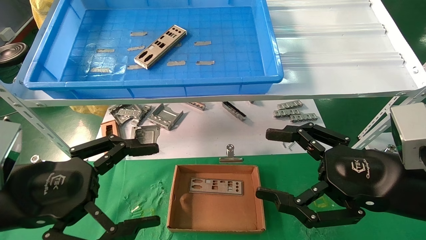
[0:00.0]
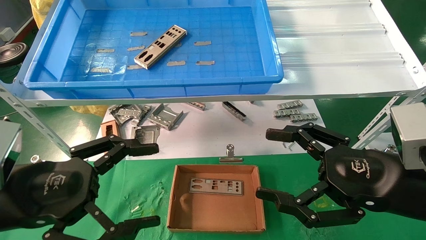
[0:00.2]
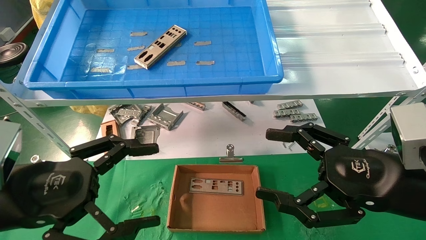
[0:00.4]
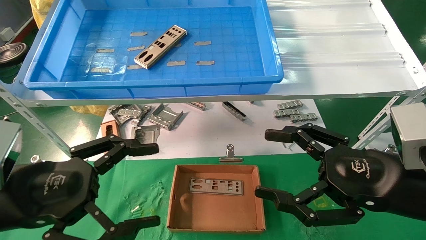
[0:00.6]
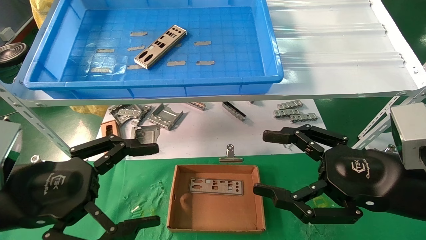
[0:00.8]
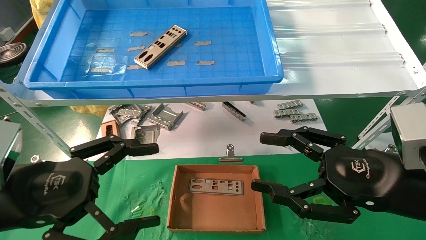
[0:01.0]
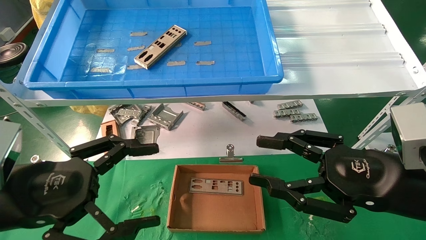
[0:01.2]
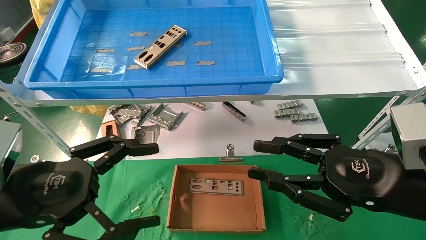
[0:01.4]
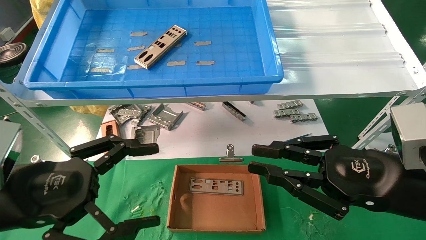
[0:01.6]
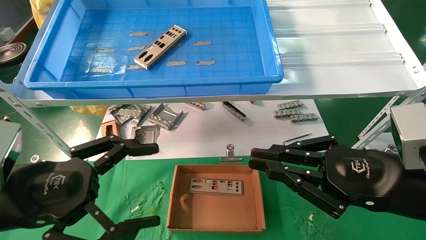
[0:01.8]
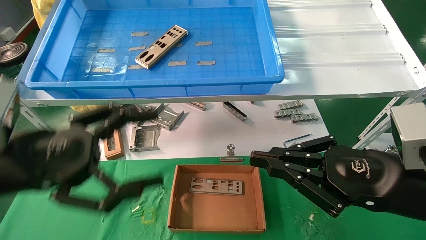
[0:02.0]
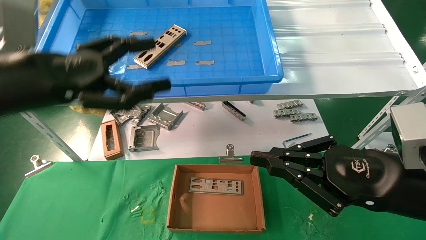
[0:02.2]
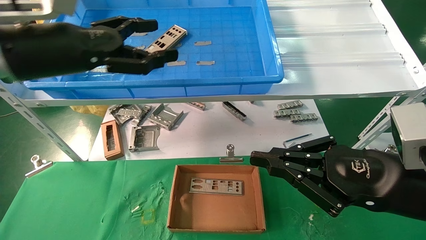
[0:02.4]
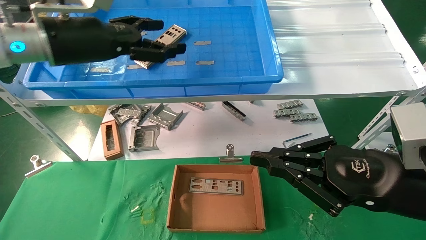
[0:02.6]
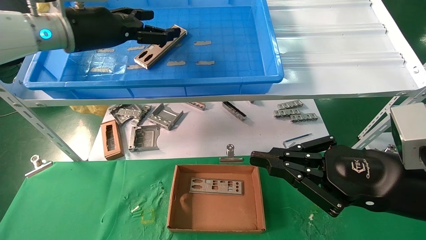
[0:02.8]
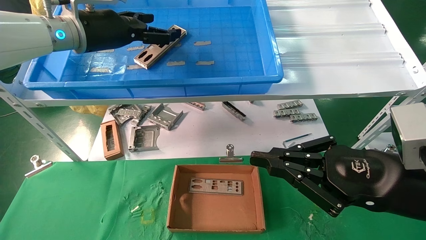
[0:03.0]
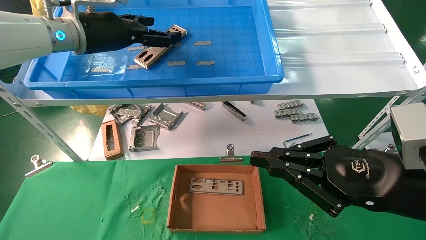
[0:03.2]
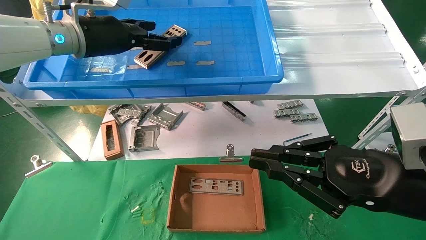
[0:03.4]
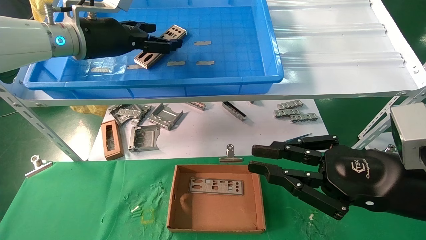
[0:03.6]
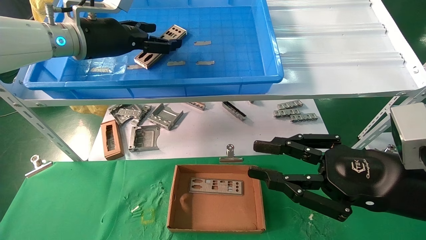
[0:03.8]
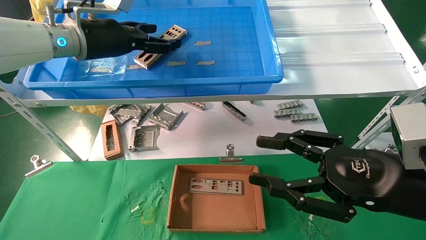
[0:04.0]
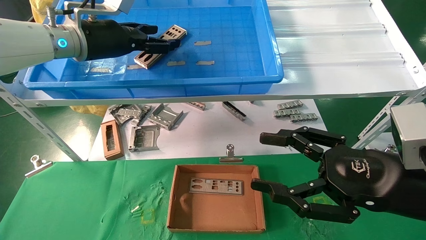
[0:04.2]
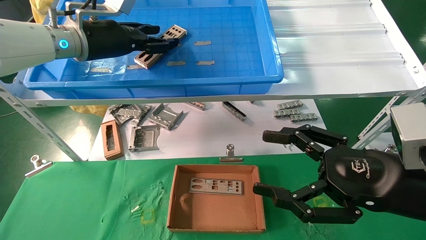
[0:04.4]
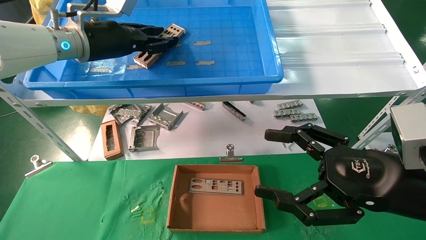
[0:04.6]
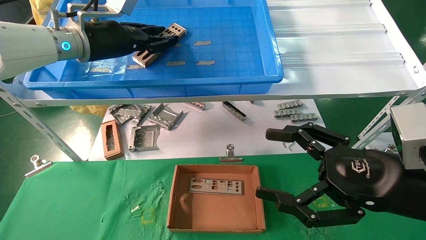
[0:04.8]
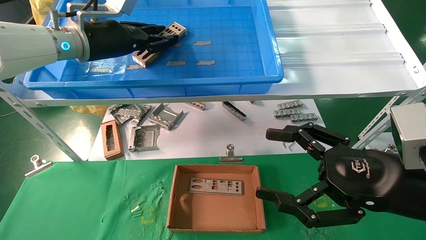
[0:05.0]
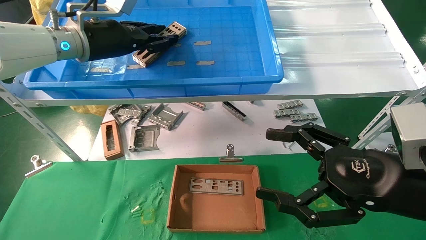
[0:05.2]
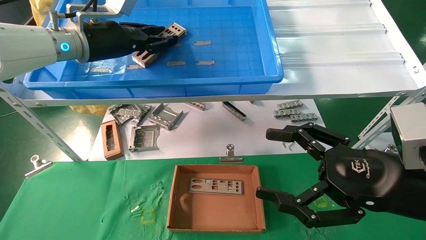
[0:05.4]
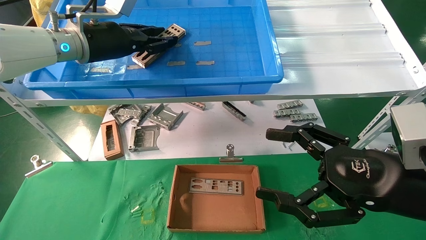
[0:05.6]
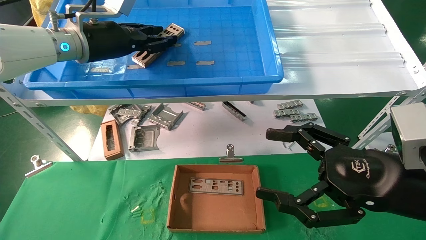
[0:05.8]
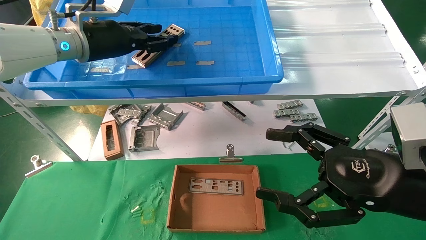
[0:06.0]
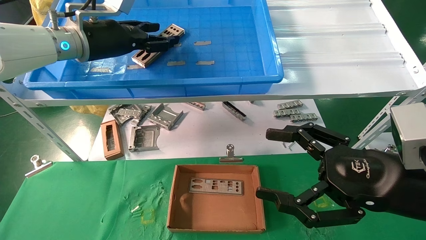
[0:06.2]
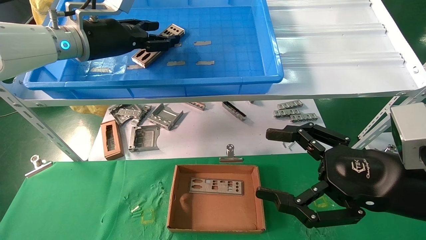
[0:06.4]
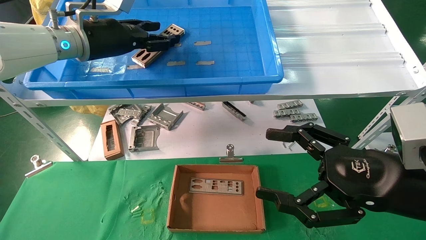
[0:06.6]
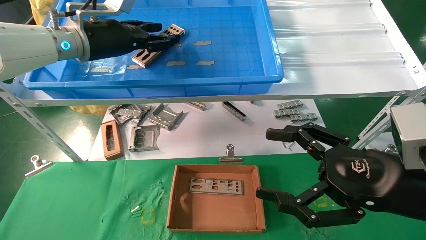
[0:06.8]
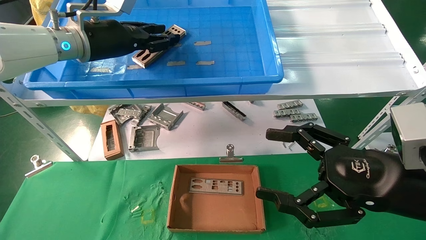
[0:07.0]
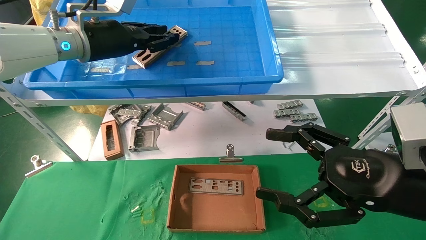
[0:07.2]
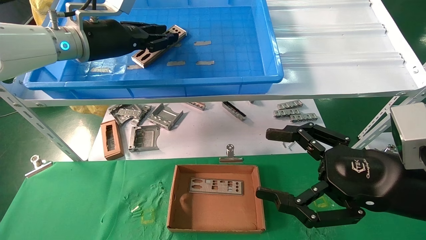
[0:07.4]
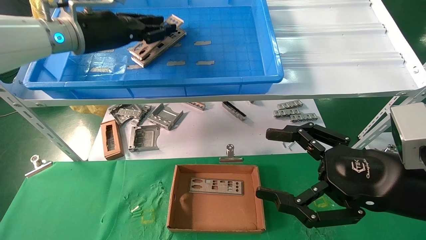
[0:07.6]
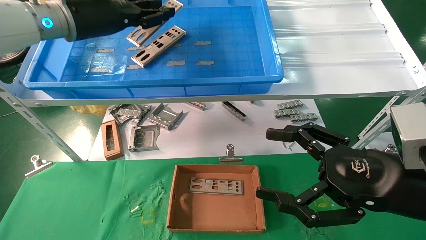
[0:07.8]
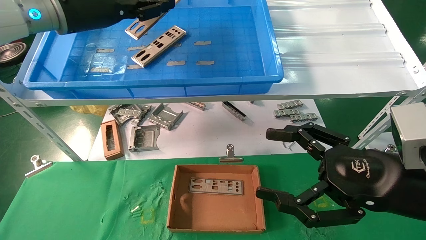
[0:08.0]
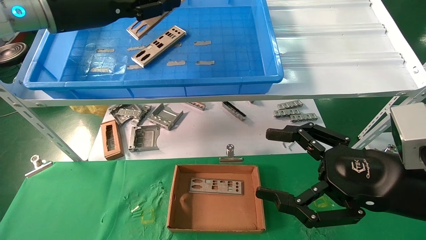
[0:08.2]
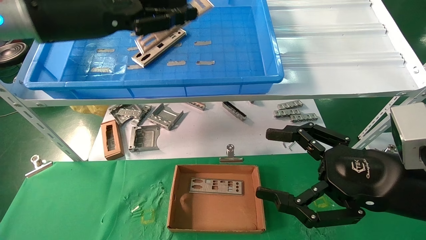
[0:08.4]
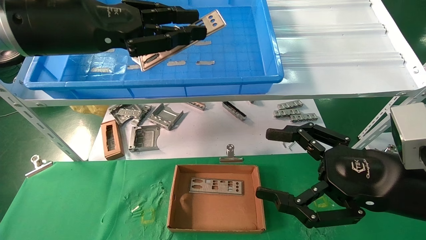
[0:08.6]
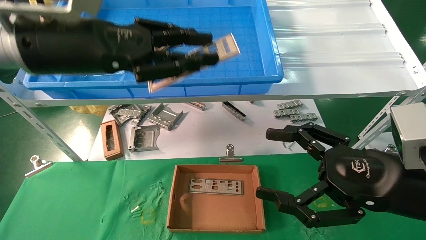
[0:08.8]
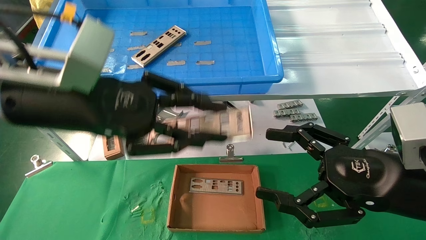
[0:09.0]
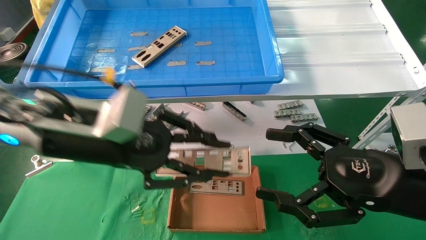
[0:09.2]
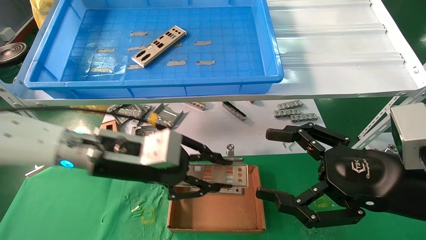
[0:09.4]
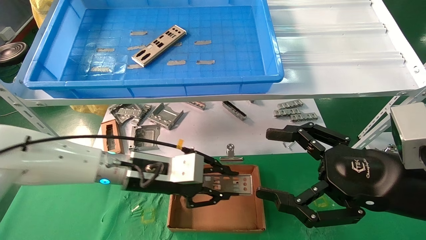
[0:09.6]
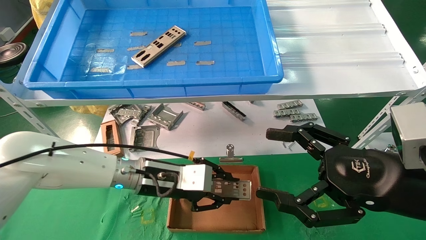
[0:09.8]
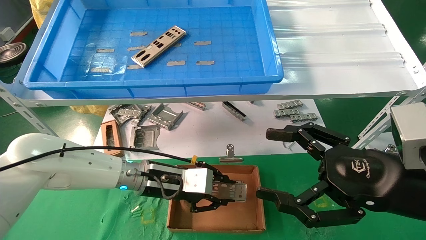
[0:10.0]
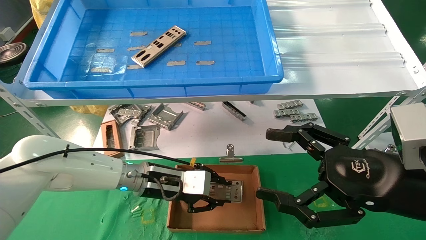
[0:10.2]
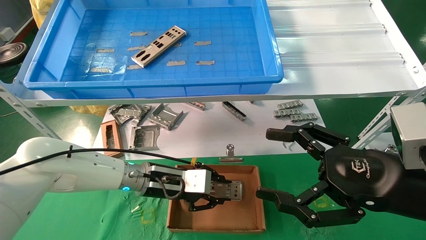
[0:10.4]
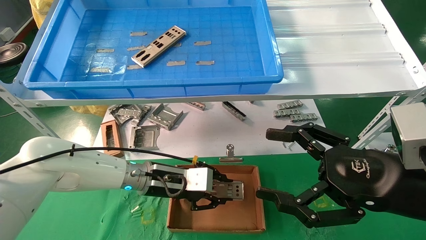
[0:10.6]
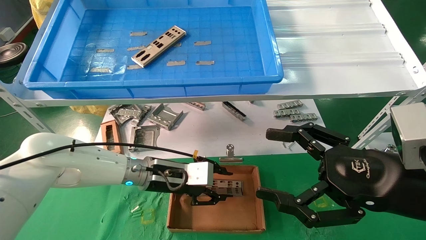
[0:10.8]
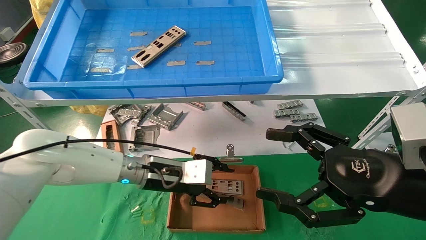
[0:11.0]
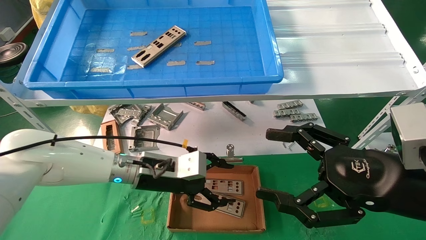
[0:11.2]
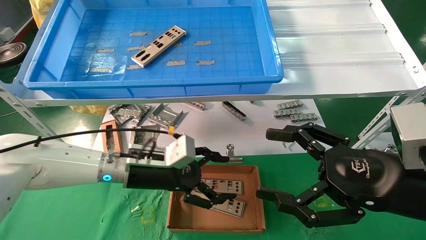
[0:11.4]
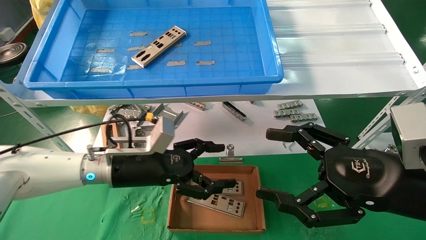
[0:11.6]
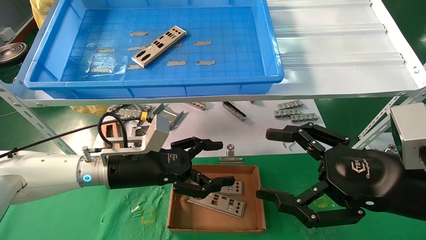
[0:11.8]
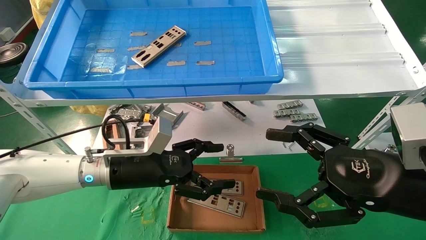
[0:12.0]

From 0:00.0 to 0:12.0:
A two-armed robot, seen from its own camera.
Task of the whole recording: pick up the parts on the tray and put them in the cardboard box.
Step, from 0:02.4 to 0:07.2: Pick up the IO bracket from the container box.
Step, from 0:07.4 to 0:10.8: Place the IO bracket into the ingredient slot.
From 0:00.0 to 0:01.6: The right gripper closes.
From 0:01.6 to 0:03.0: The left gripper moves forward and upward, roughly 30 cm.
From 0:03.0 to 0:04.4: The right gripper opens up; the left gripper closes.
From 0:04.4 to 0:06.0: The left gripper closes up.
From 0:06.0 to 0:07.6: The grippers stay close to where they were, moving slightly.
From 0:07.6 to 0:09.0: The left gripper moves backward and downward, about 15 cm.
From 0:09.0 to 0:10.4: The left gripper travels downward and forward by roughly 25 cm.
From 0:10.4 to 0:12.0: The left gripper shifts by some 10 cm, and opens up.

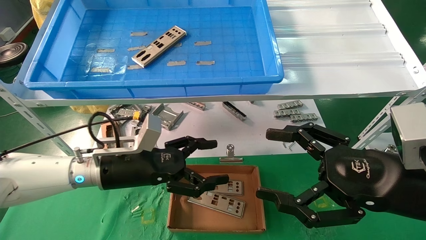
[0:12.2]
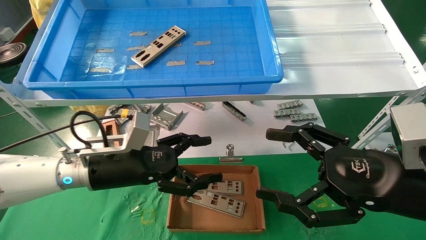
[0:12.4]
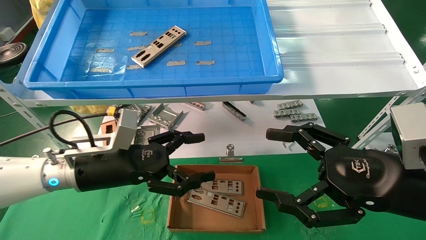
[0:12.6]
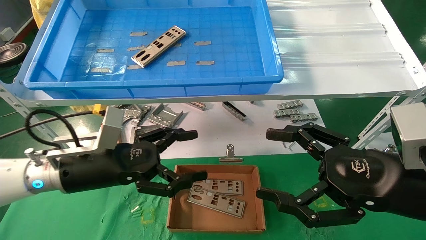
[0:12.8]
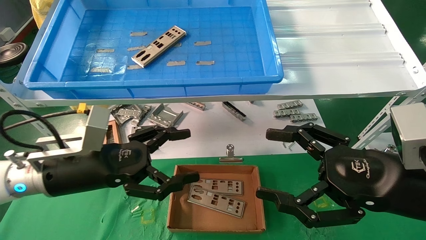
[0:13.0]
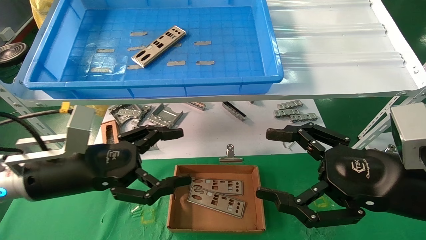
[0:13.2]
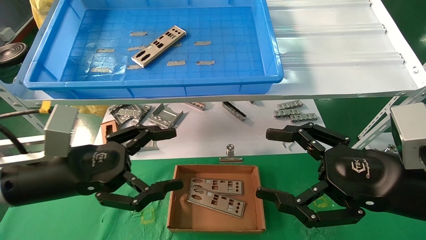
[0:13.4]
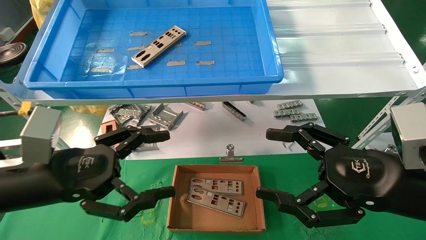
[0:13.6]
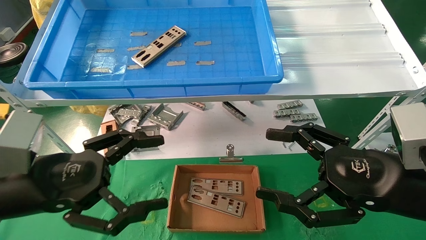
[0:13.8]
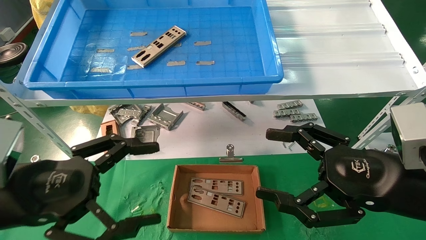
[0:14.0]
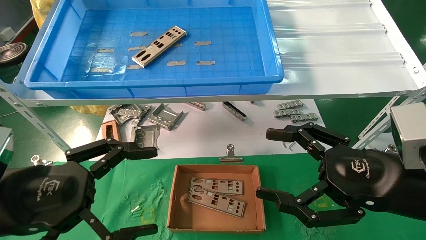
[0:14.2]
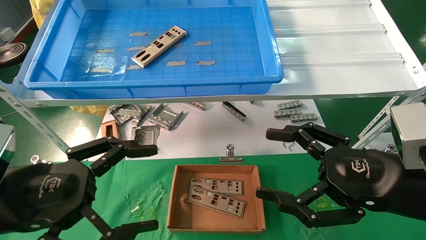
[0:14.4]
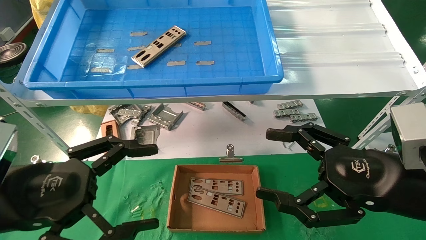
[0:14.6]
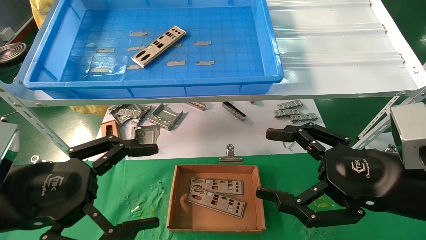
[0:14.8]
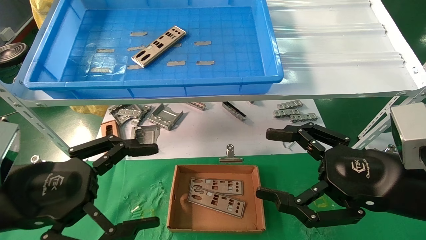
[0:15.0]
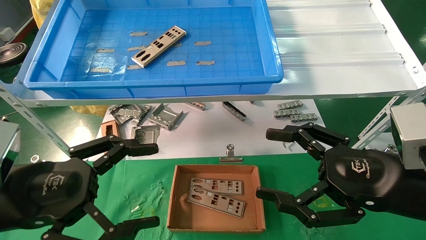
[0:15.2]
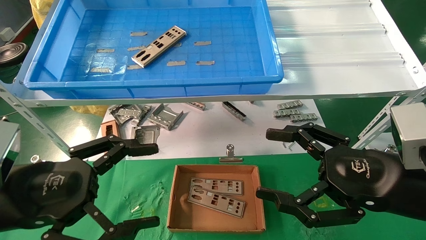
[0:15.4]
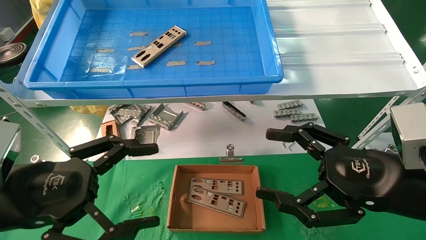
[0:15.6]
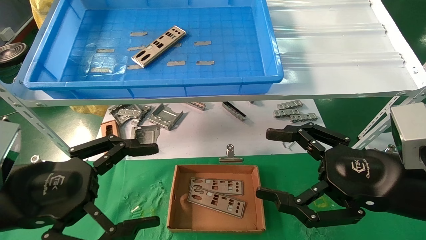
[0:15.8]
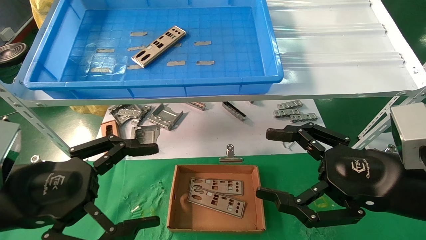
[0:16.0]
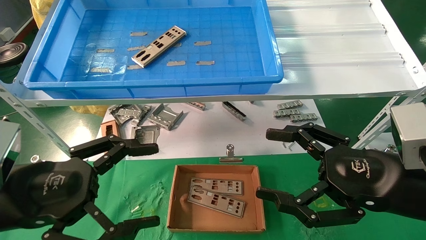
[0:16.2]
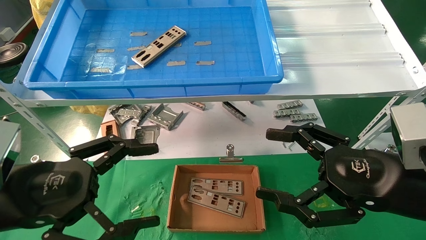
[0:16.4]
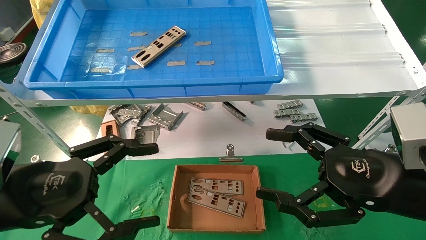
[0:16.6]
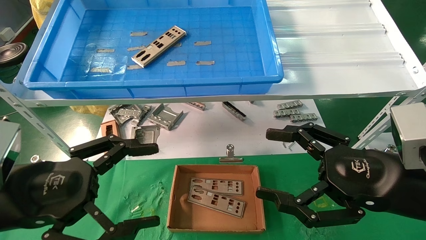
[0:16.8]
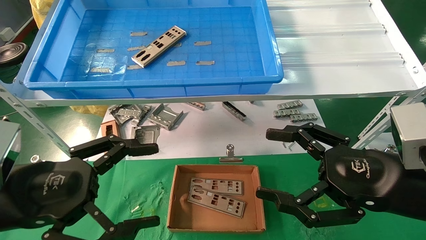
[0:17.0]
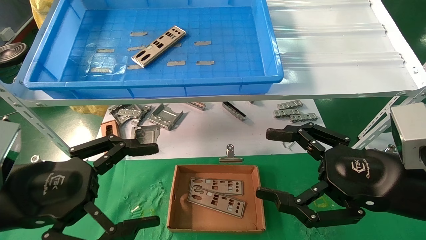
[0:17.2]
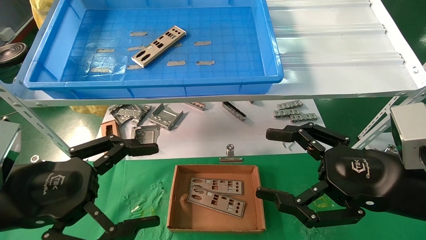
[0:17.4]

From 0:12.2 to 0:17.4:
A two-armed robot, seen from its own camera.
Task of the whole recording: pick up the parts on the tray and put them in the cardboard box.
From 0:12.2 to 0:14.0: The left gripper heads backward and to the left, covering about 20 cm.
From 0:14.0 to 0:17.4: Neither gripper changes place.
